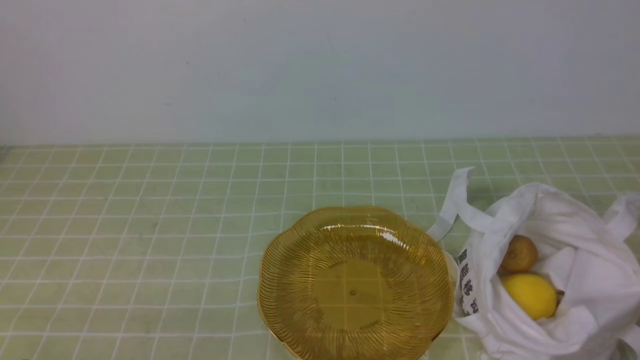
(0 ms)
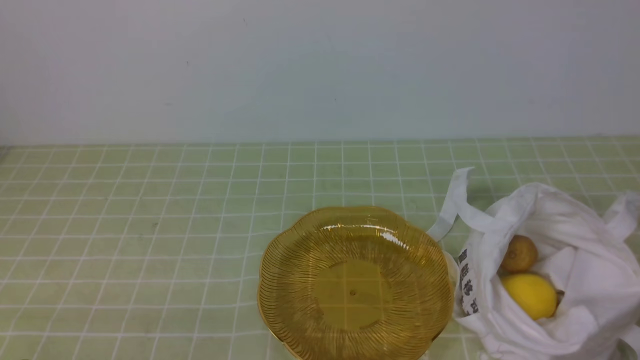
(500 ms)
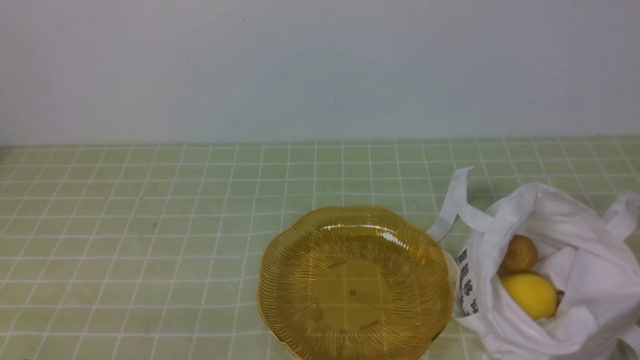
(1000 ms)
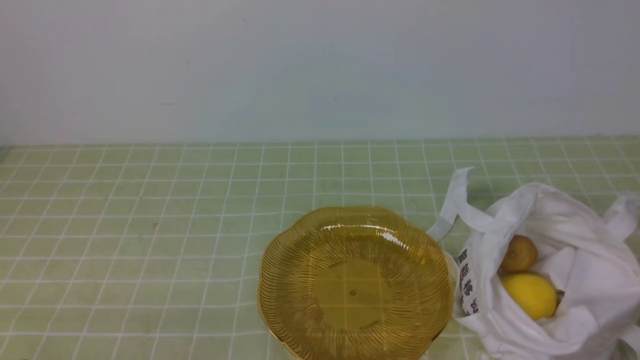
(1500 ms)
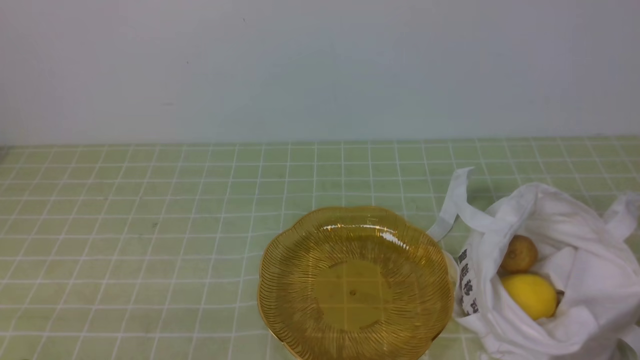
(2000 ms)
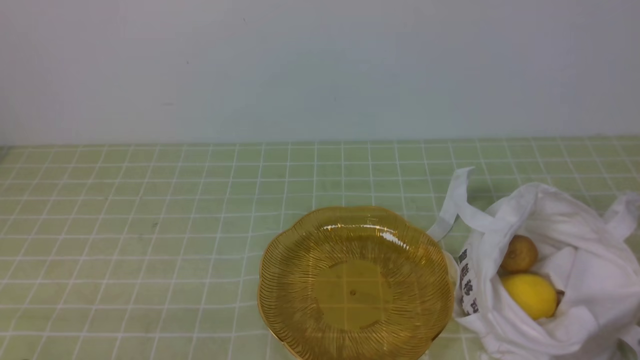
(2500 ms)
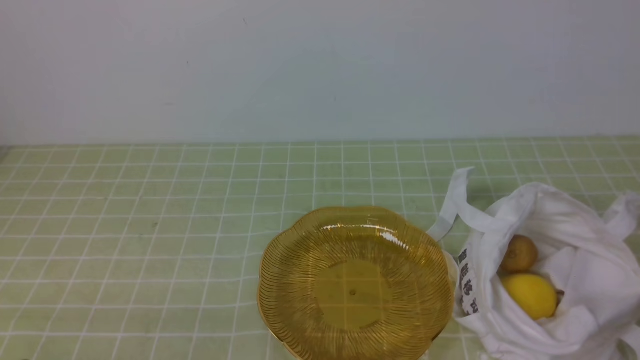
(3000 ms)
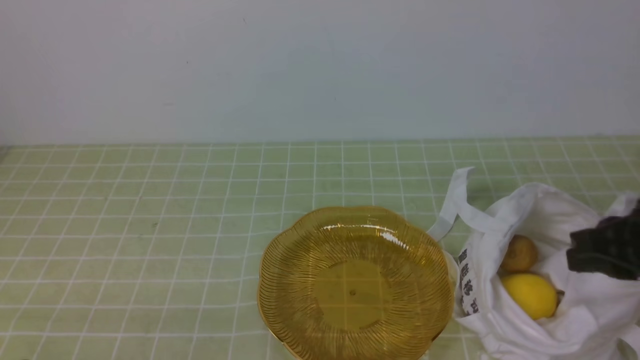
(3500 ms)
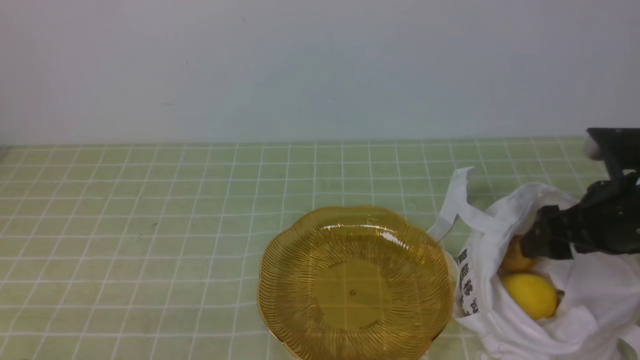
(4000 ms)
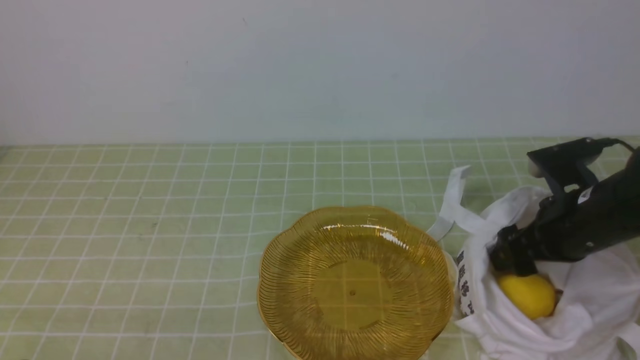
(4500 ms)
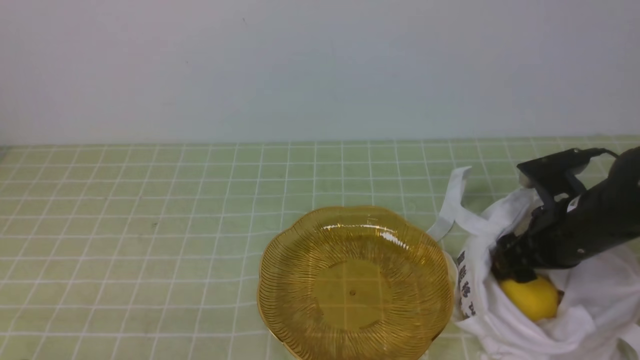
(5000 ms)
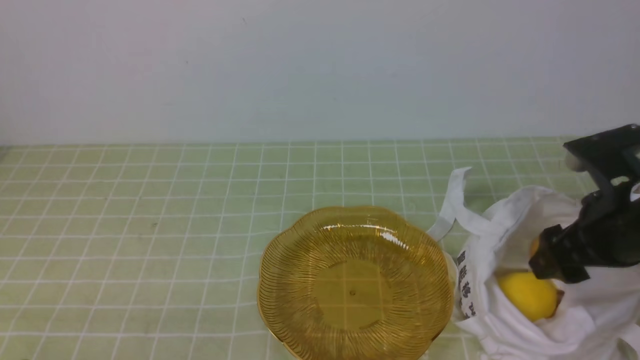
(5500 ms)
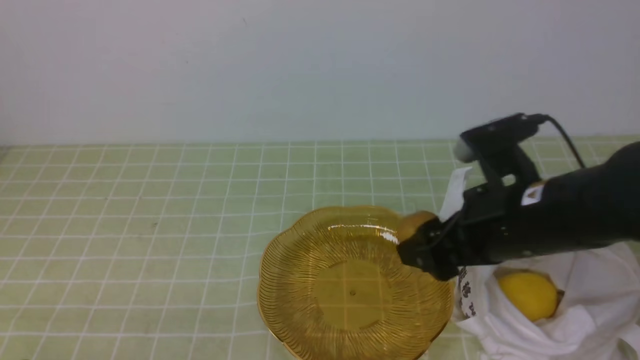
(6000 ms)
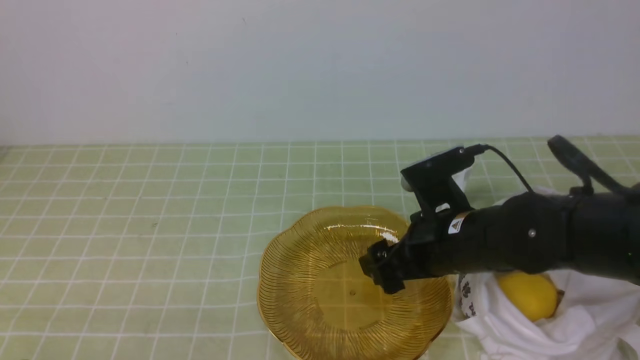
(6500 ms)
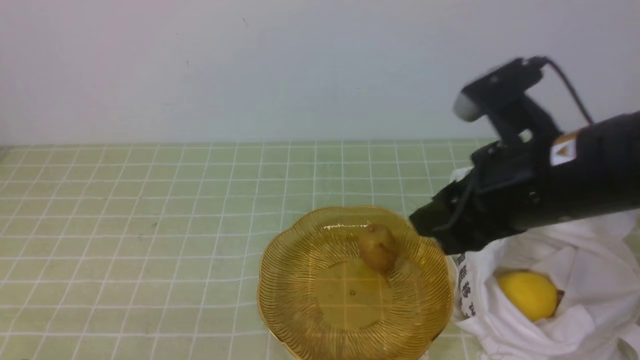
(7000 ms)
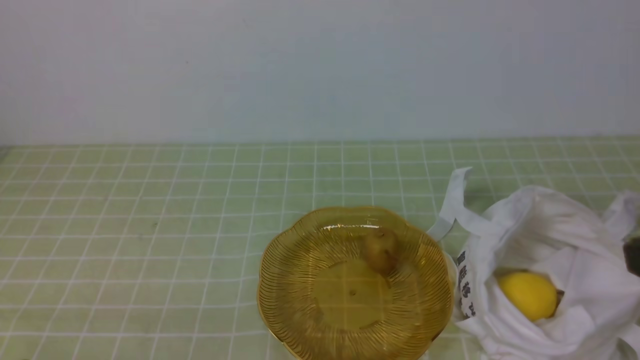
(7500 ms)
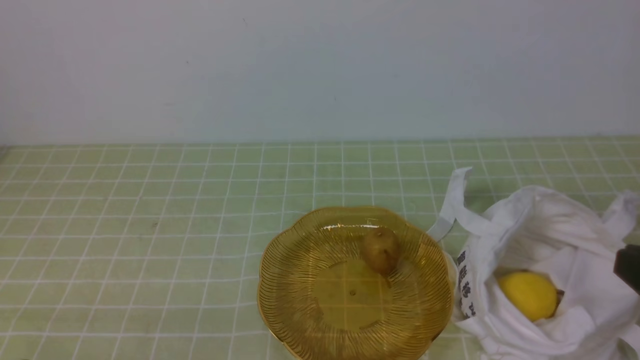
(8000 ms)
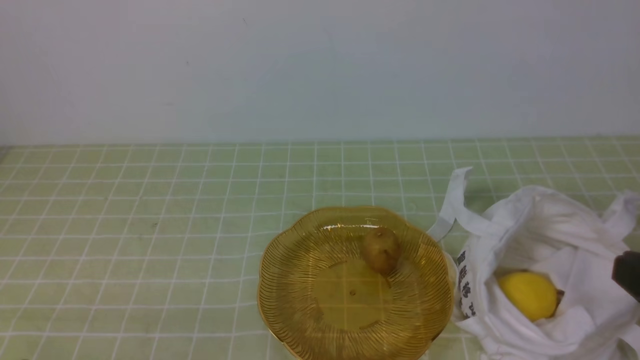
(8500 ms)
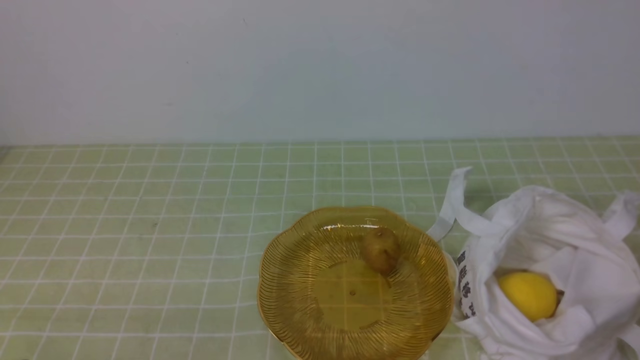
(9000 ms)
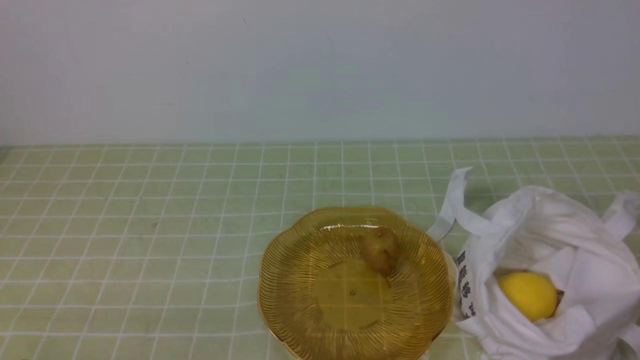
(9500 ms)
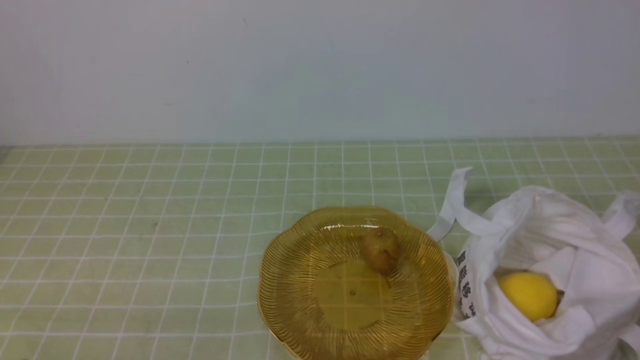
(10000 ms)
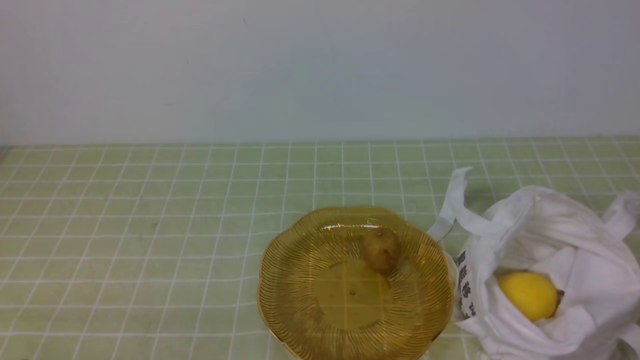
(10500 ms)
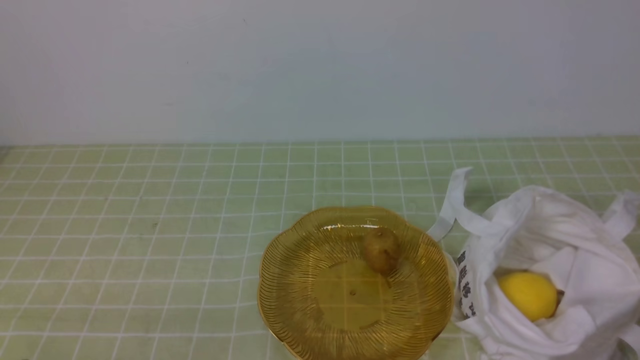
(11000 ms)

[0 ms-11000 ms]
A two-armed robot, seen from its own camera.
Step, 0 ms to 5000 ms: use the right arm to grab a kiwi from the bag.
Step, 5500 ms to 6500 ms: use the right arm to put the kiwi into the empty plate on the left.
2000 ms to 3500 ms: The right gripper shifts some 15 cm forward and upward.
3500 ms to 5500 ms: The right gripper shifts some 5 cm forward, and opens up.
5500 ms to 7500 ms: The right gripper heads backward and upward, covering roughly 20 cm, and closes its fingers.

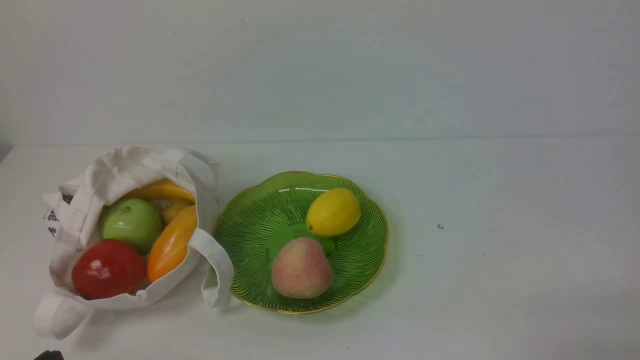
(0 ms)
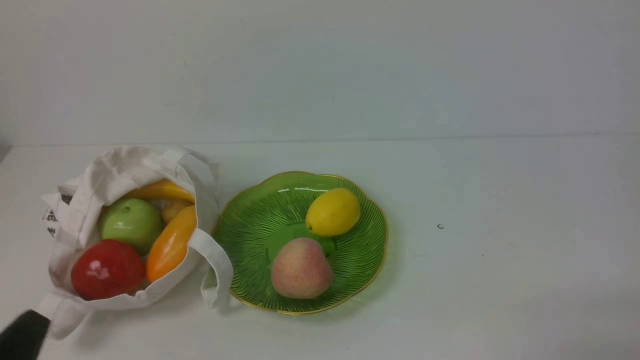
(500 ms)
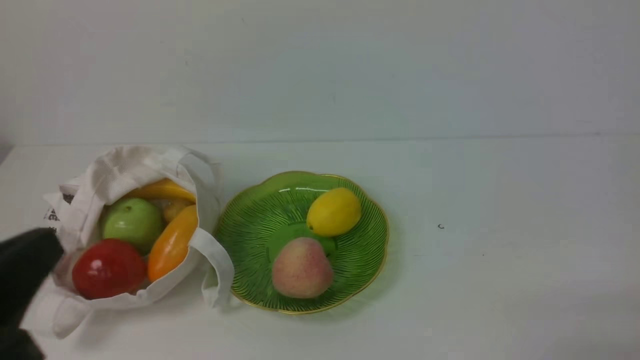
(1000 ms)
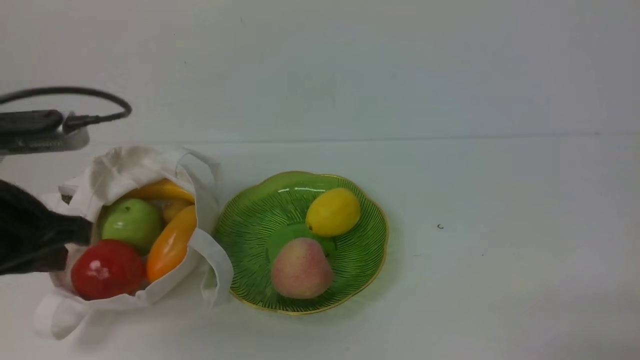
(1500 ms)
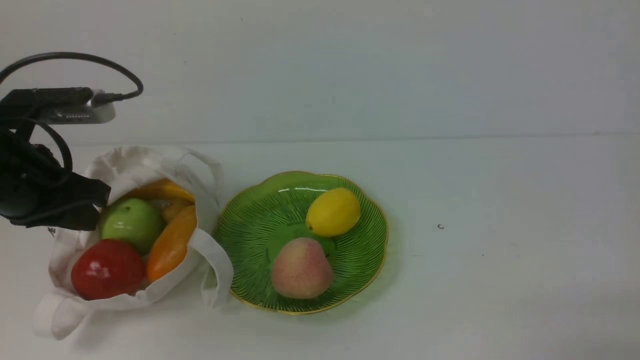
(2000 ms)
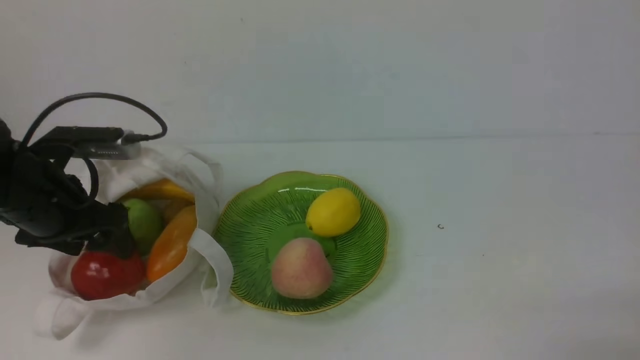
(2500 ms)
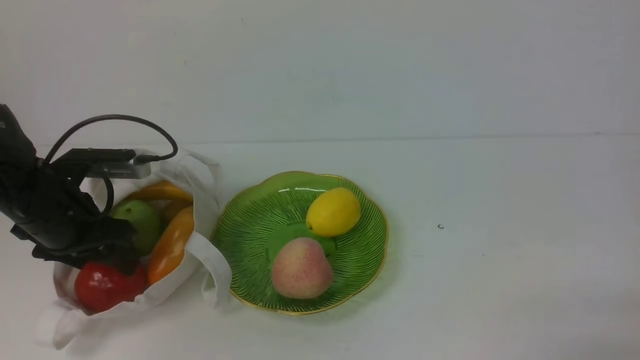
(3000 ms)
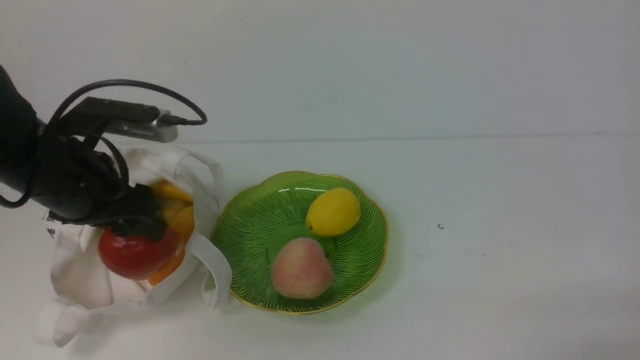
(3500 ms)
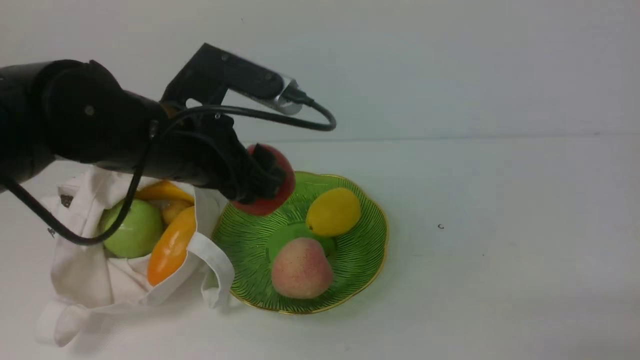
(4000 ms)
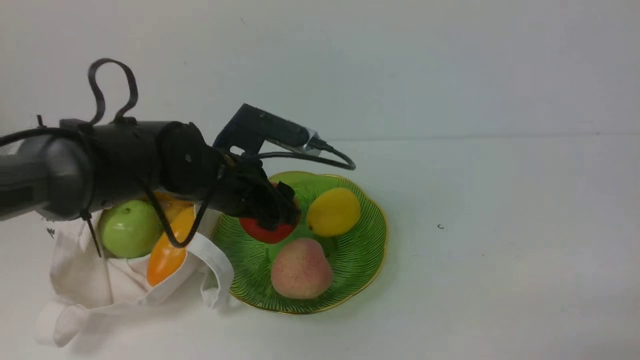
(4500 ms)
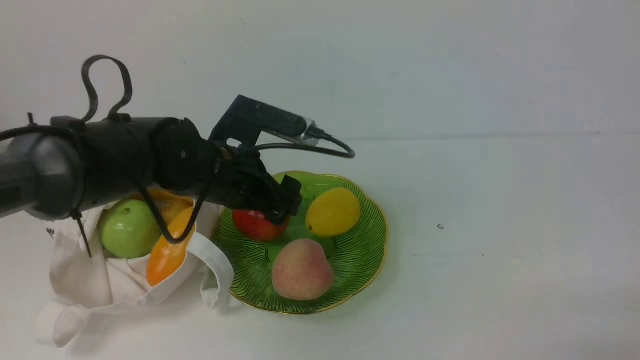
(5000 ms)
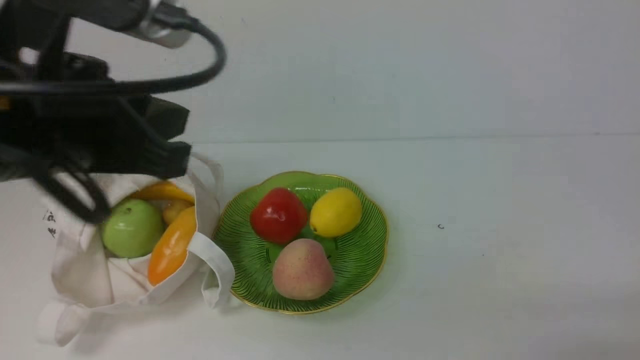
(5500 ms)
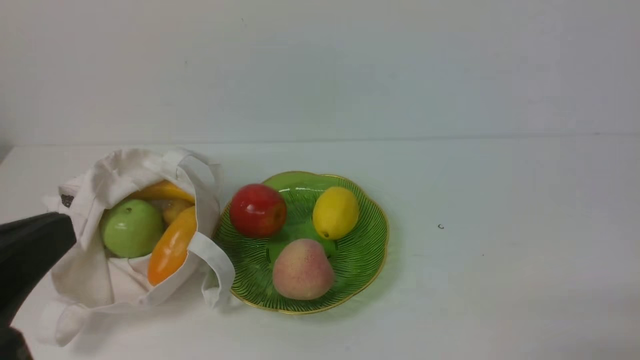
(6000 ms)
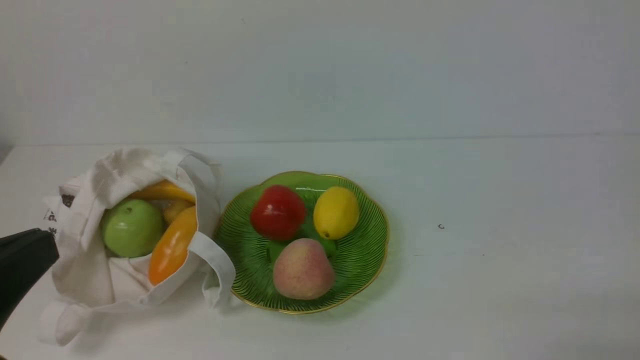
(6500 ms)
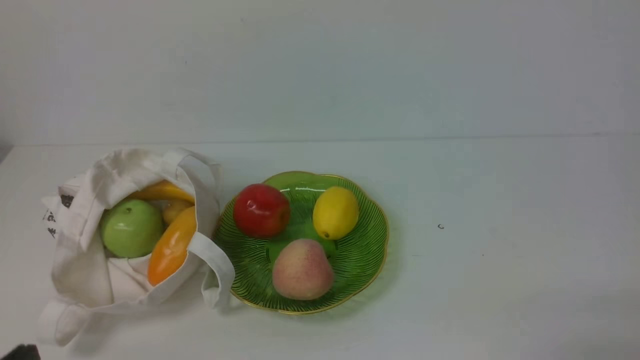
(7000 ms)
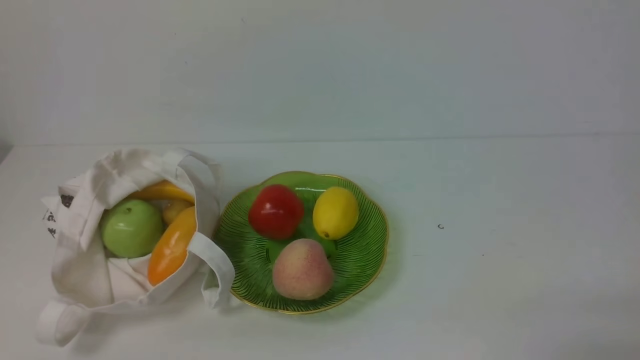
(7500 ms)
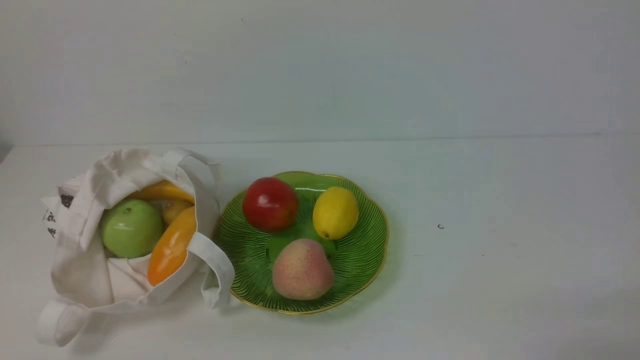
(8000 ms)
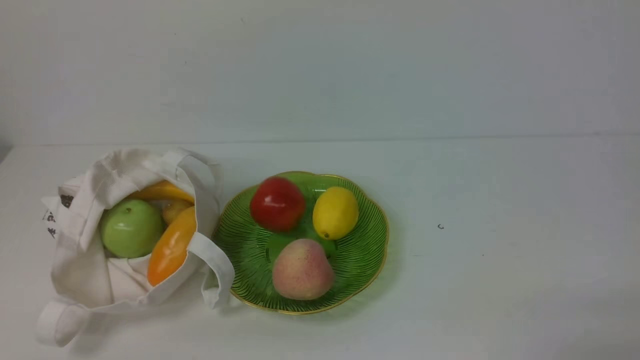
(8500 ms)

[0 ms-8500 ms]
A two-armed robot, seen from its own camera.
Step, 0 ms to 3000 ms: use the left arm to grab an apple from the bag.
Step, 4000 ms to 5000 ms: use the left arm to put the apple into the empty plate on the right.
0 ms to 2000 ms: The left gripper moves forward and upward, approximately 25 cm.
2000 ms to 4000 ms: The left gripper shifts approximately 15 cm to the right, and opens up.
4000 ms to 6500 ms: The left gripper travels backward and to the left by roughly 25 cm, and closes up.
6500 ms to 8500 ms: The left gripper is displaced downward by roughly 15 cm.
